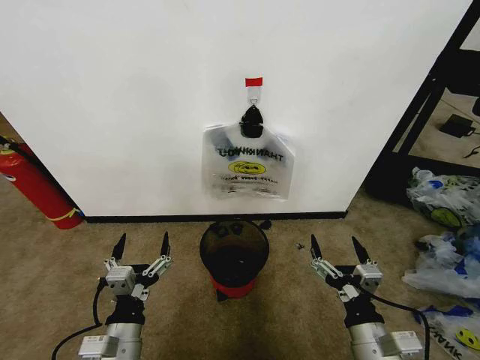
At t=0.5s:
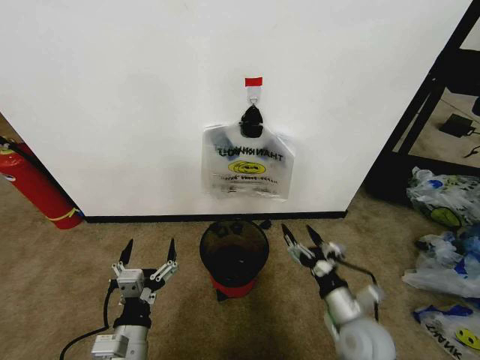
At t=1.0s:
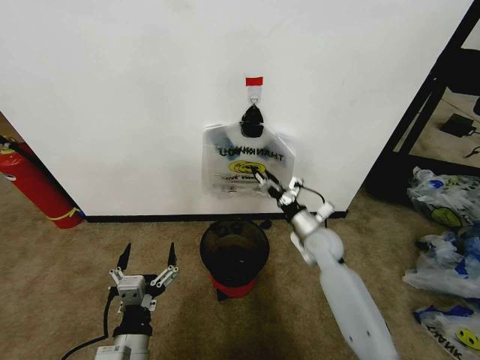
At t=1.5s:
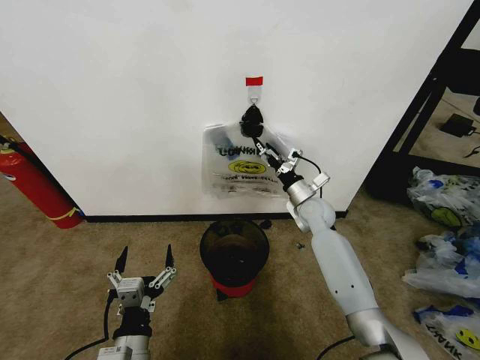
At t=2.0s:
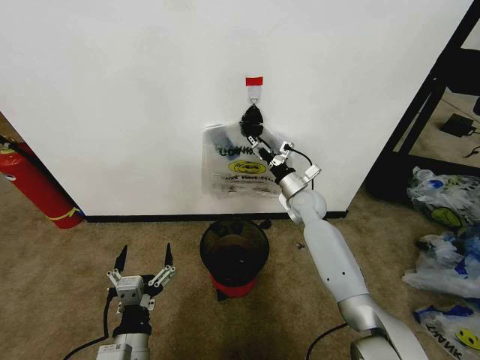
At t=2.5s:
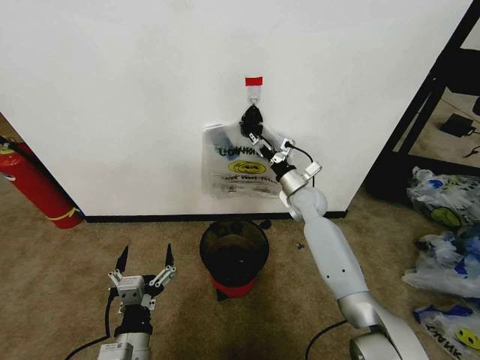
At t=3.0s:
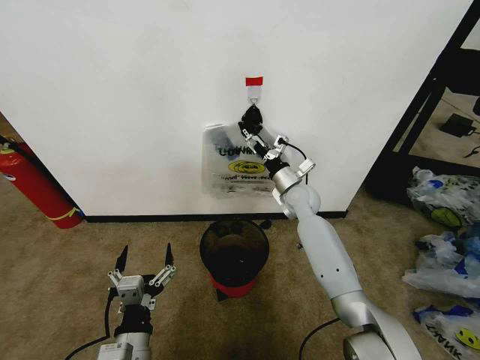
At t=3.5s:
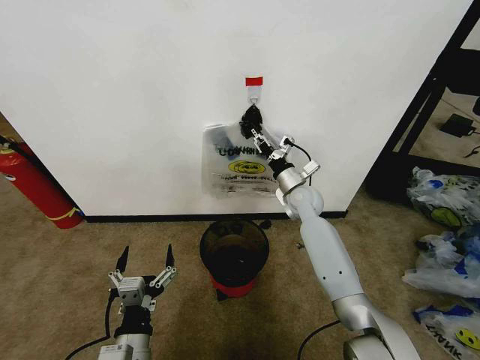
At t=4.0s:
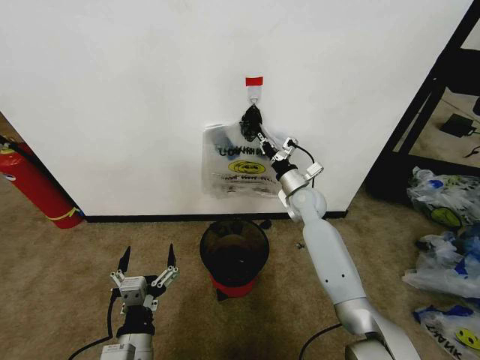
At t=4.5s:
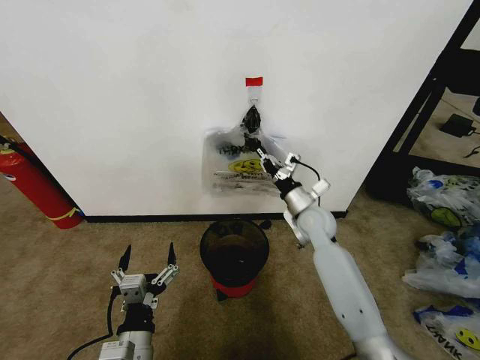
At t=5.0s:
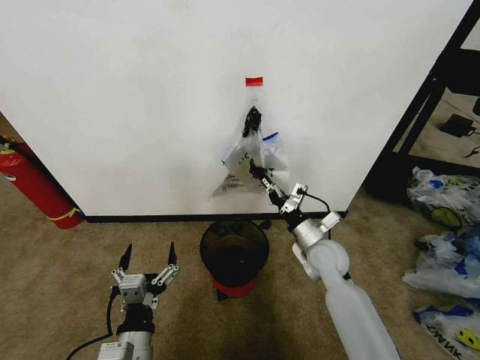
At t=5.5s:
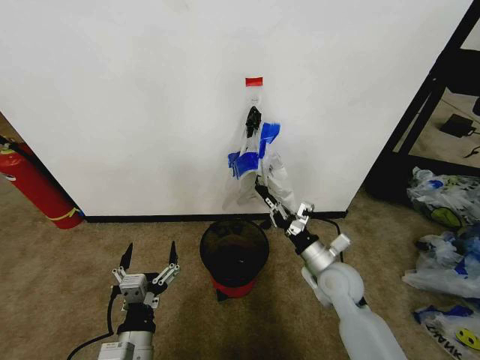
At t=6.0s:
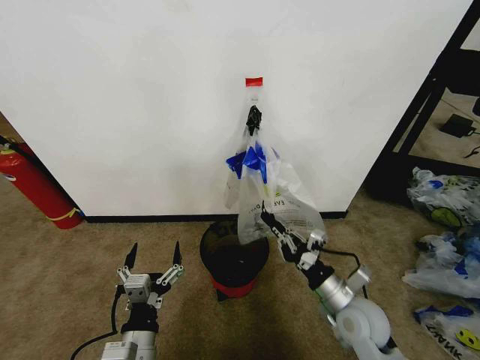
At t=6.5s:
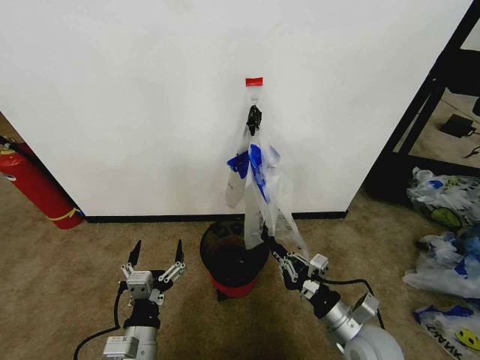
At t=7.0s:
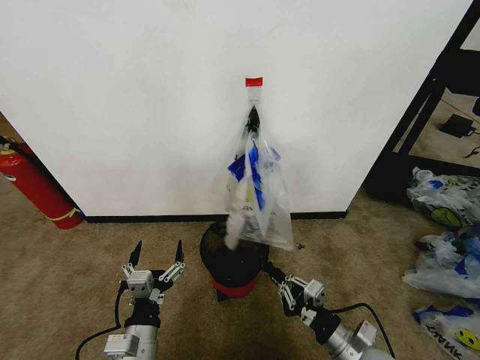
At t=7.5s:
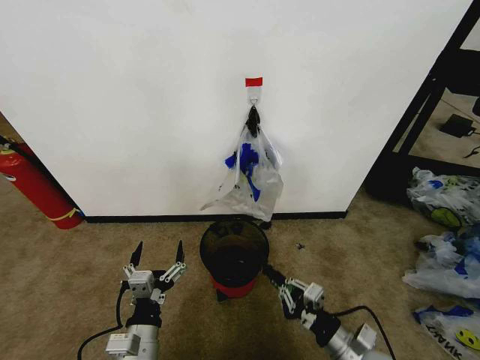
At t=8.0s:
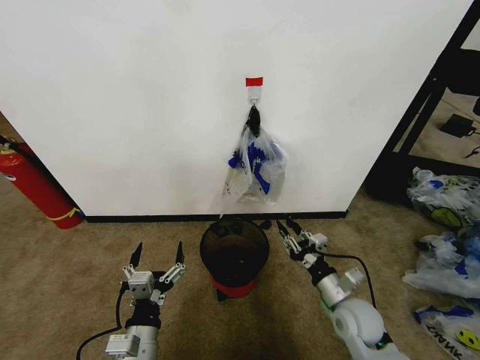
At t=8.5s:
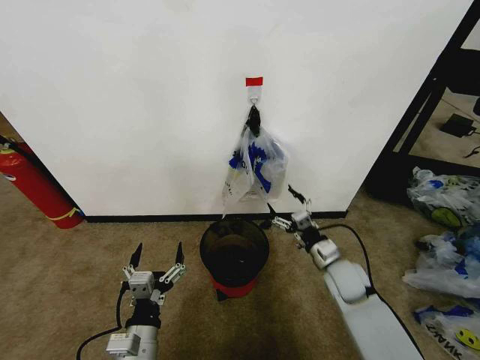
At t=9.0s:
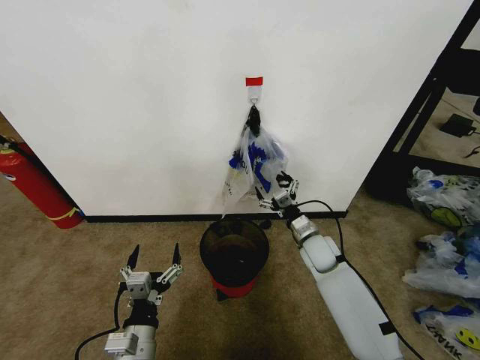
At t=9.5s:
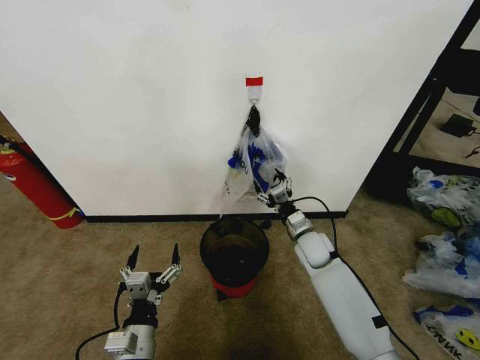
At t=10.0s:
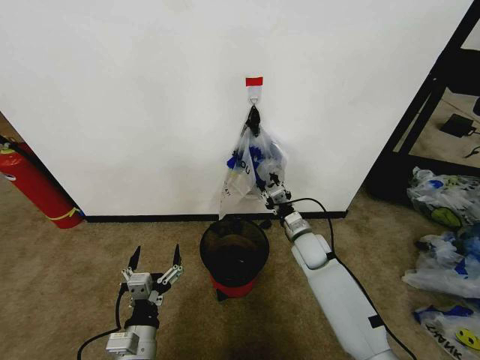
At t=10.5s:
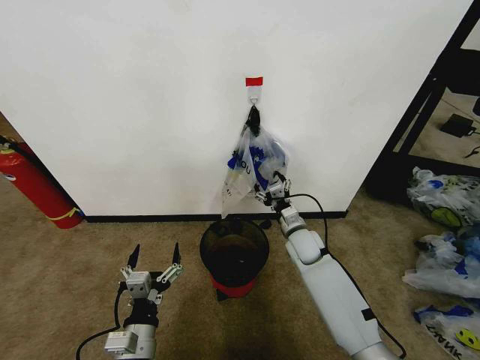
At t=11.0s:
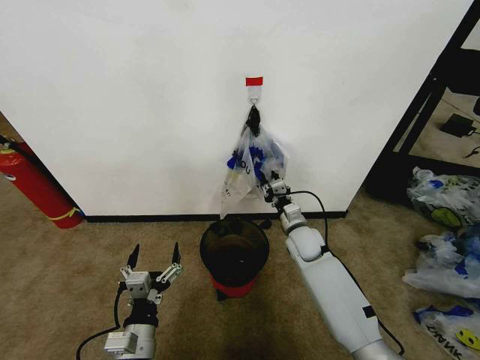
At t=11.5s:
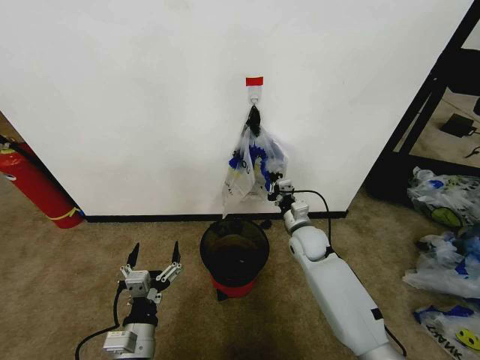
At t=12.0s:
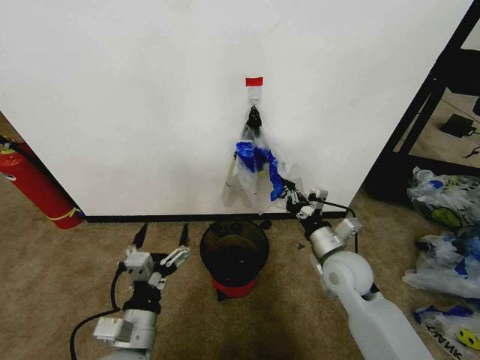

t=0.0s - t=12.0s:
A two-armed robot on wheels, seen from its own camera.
Task of the whole recording: Pick up the garbage bag from the wall and place it over the trash bin.
t=2.0s - t=4.0s: The right gripper closes its fingers.
t=4.0s - t=6.0s: The right gripper is displaced backward by roughly 30 cm.
t=6.0s - t=8.0s: The right gripper reaches approximately 10 cm backward, then returns.
t=8.0s - t=10.0s: The right gripper shifts approximately 15 cm forward, and opens and closes again.
t=10.0s - t=12.0s: The right gripper is displaced backward and upward by roughly 15 cm, and closes. The left gripper heads upward, covering some 10 cm.

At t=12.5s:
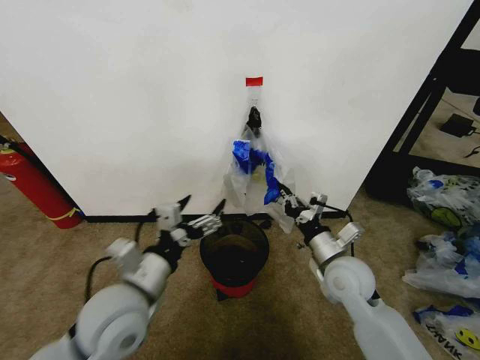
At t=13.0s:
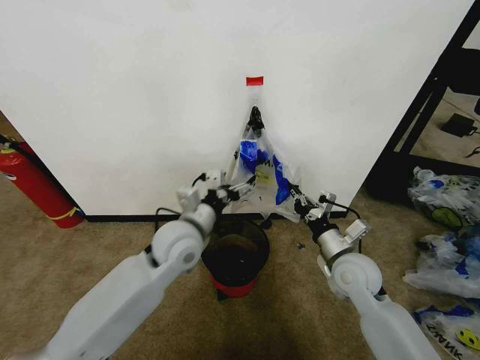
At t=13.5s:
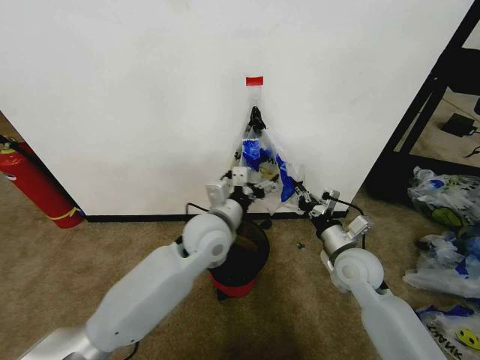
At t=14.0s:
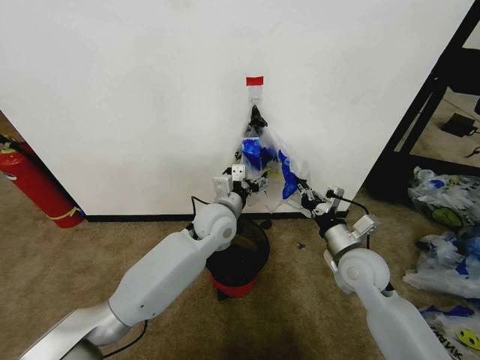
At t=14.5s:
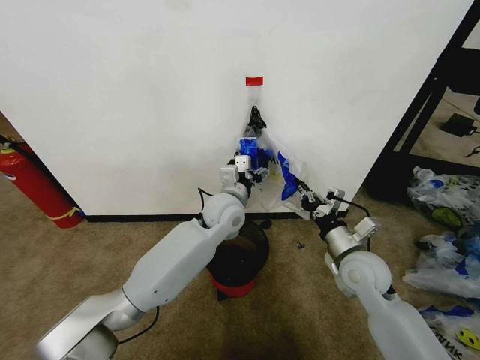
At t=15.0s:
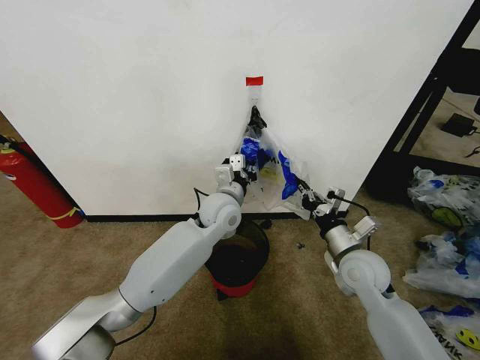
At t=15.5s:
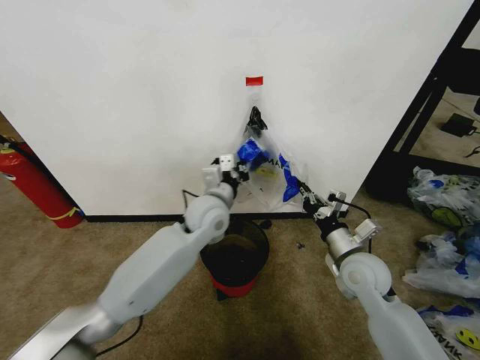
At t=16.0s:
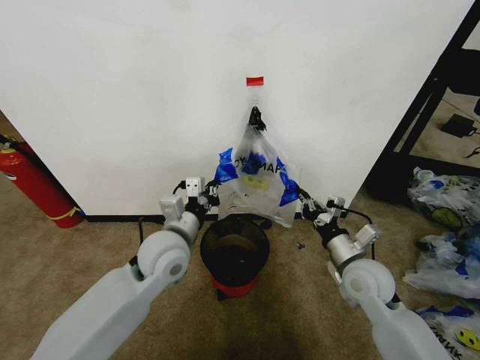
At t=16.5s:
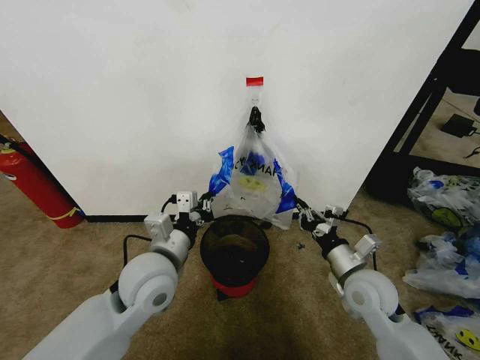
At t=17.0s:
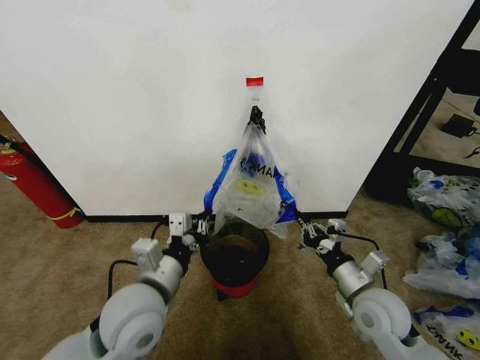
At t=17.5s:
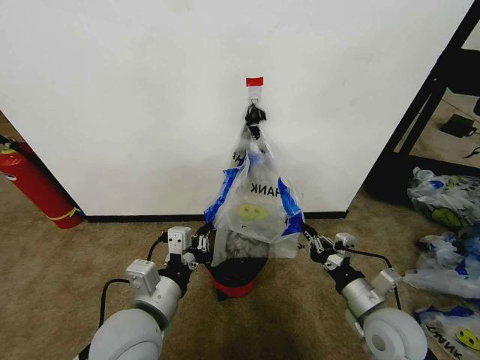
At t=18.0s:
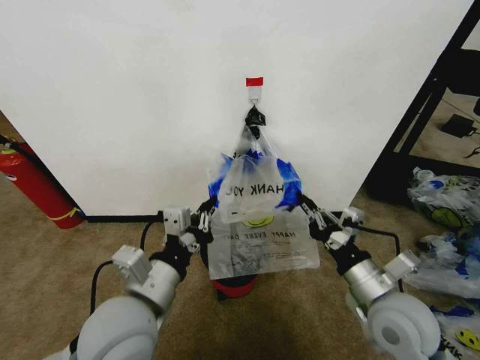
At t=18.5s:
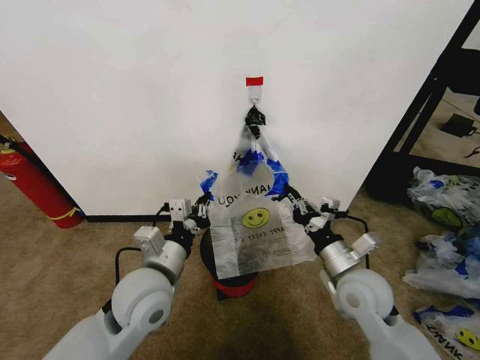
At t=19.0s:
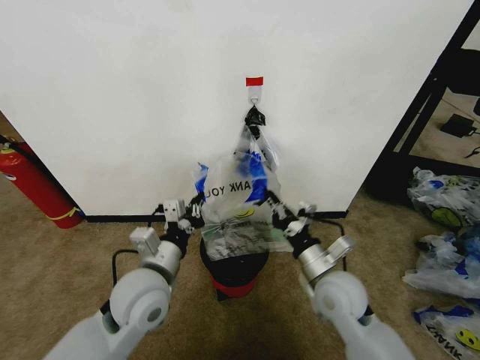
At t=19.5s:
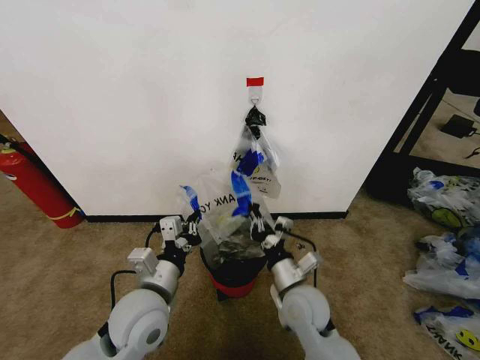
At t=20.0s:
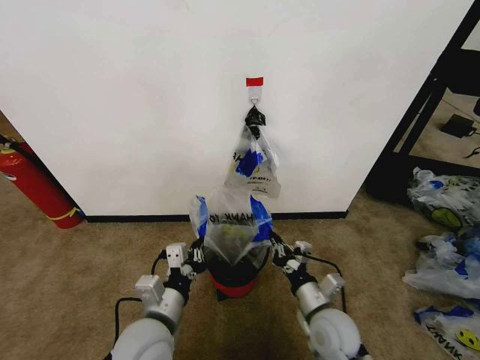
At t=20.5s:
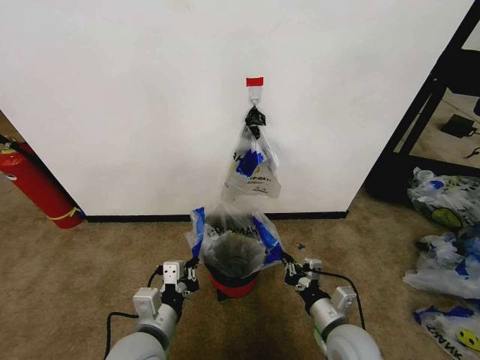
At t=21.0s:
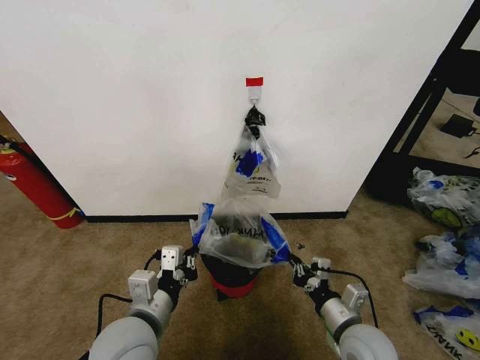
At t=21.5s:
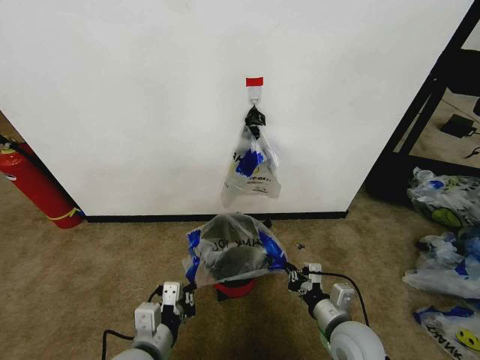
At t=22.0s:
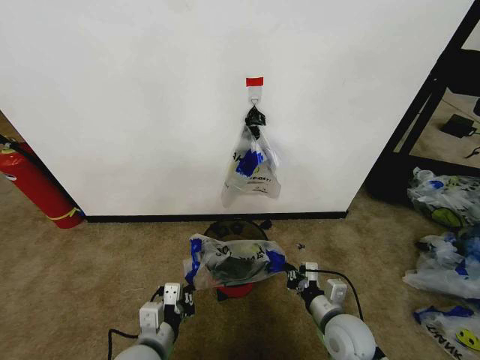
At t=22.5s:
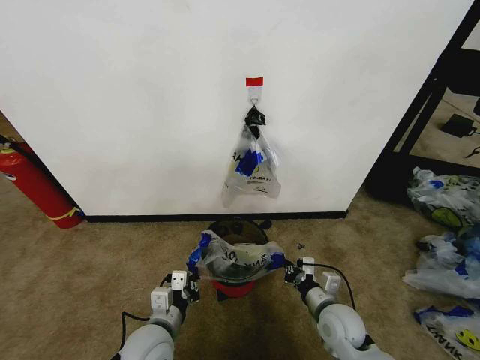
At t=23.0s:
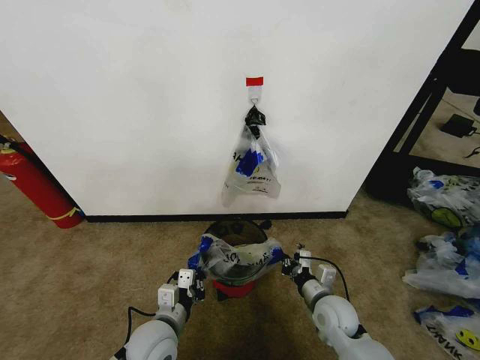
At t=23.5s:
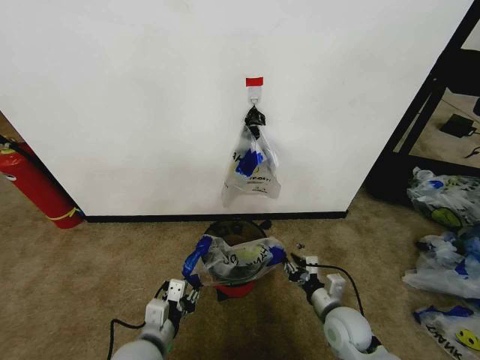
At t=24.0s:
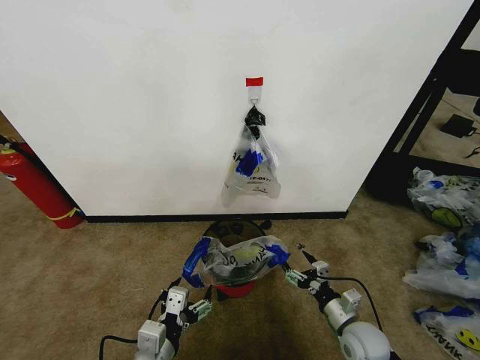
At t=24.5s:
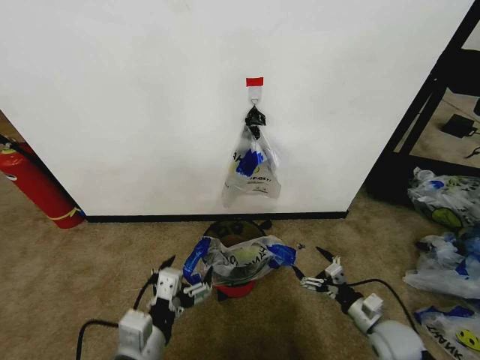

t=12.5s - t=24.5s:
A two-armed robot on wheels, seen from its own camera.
Task of the whole recording: Pick up the garbage bag from the wall and place it over the trash bin.
t=12.5s - t=14.5s: The left gripper is displaced forward and to the right by some 25 cm.
t=14.5s - t=16.5s: The left gripper heads backward and to the left, covering approximately 20 cm, and closes its fingers.
t=16.5s - t=18.5s: The left gripper reaches approximately 10 cm backward, then returns.
t=18.5s - t=20.5s: Both grippers move downward and backward, approximately 10 cm.
t=20.5s - t=22.5s: The left gripper goes roughly 5 cm downward; the right gripper travels forward by roughly 5 cm.
t=22.5s - t=24.5s: The left gripper moves upward and backward, approximately 15 cm, and opens its fingers. Meanwhile the right gripper moves to the right, about 10 cm, and opens its fingers.

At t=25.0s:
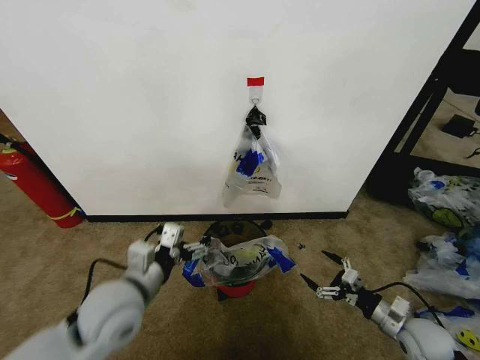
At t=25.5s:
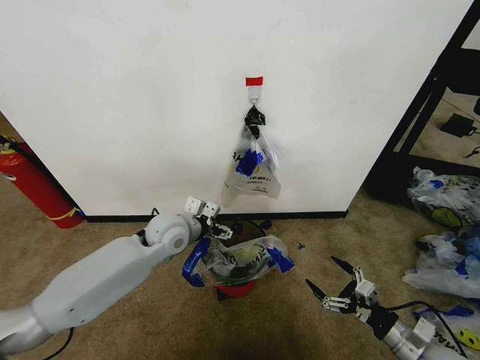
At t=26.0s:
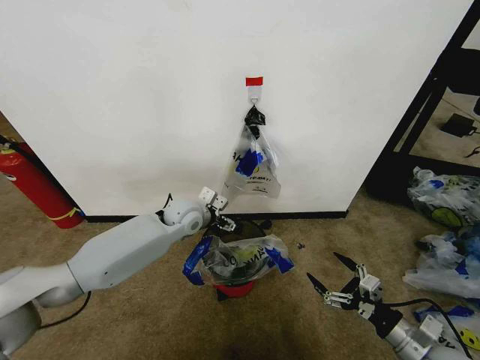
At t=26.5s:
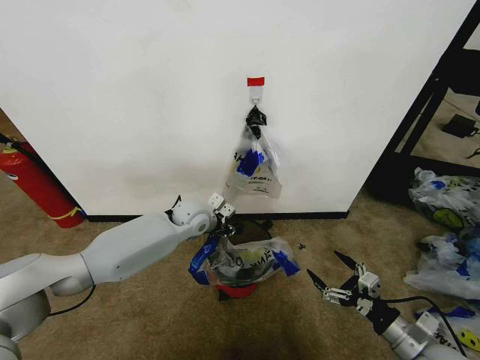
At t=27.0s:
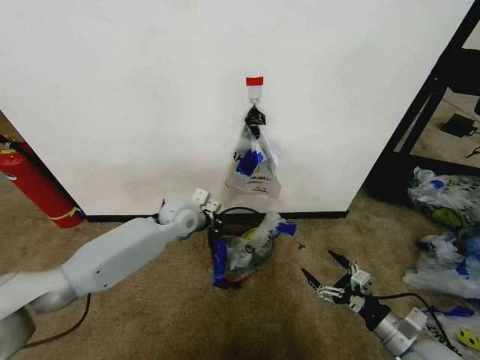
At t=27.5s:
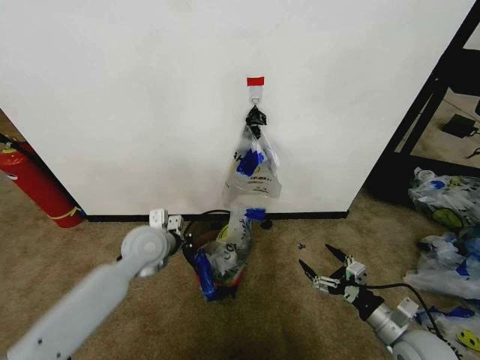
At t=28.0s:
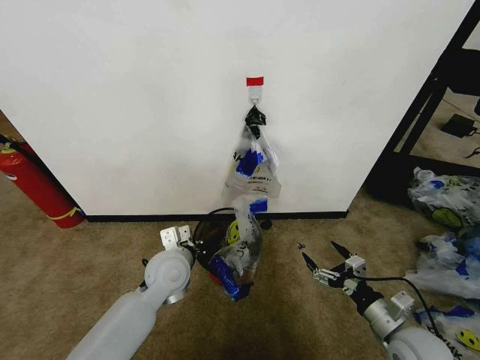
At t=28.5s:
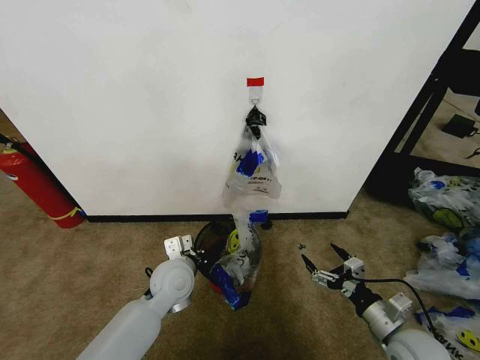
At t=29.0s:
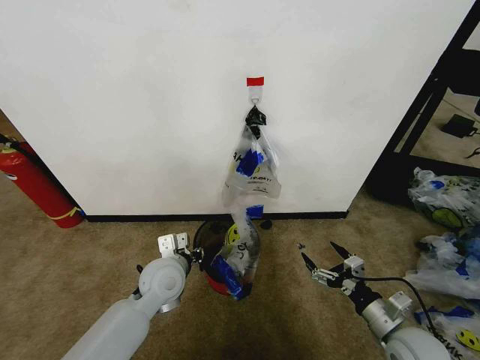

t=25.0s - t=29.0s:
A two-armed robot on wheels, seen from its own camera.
Task of the whole recording: Pick up the garbage bag from the wall and place it over the trash bin.
t=25.0s - t=27.0s: The left gripper is displaced forward by roughly 25 cm, and closes its fingers, while the right gripper shifts some 5 cm backward.
t=27.0s - t=29.0s: The left gripper moves backward, roughly 15 cm, and opens up.
